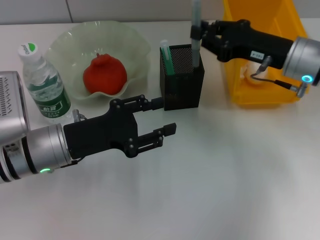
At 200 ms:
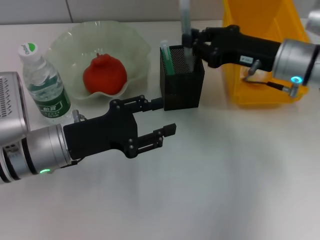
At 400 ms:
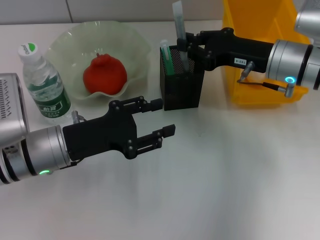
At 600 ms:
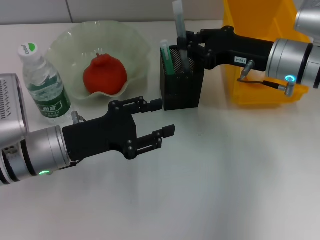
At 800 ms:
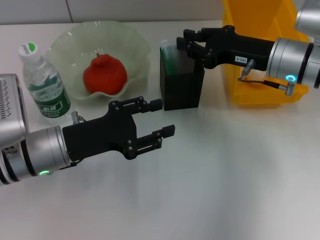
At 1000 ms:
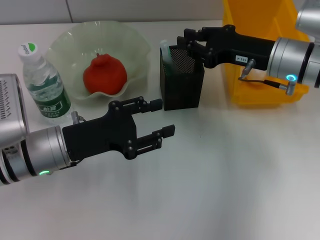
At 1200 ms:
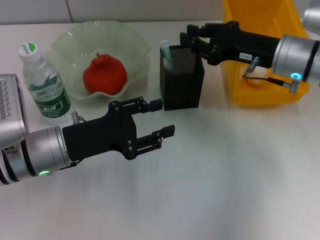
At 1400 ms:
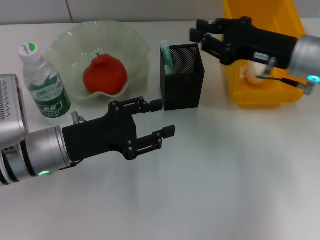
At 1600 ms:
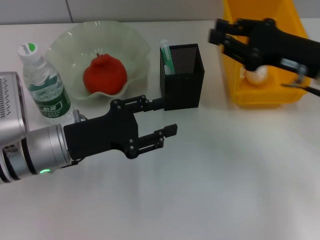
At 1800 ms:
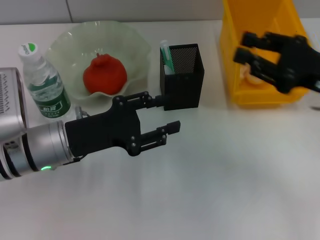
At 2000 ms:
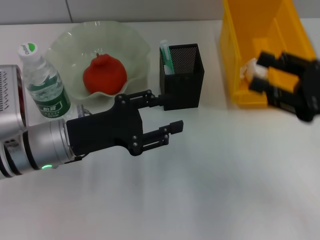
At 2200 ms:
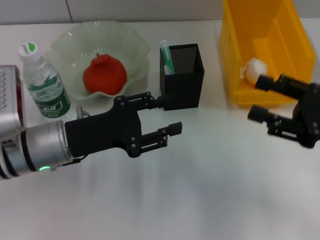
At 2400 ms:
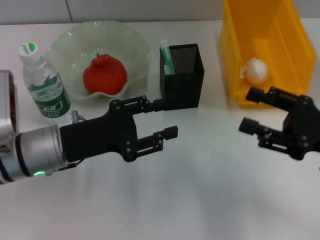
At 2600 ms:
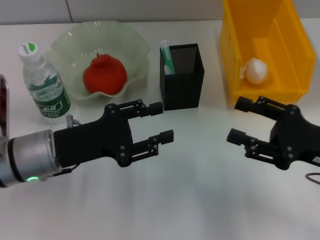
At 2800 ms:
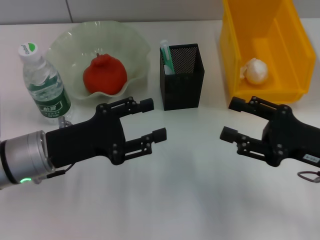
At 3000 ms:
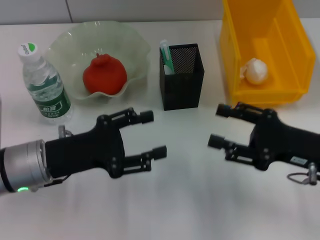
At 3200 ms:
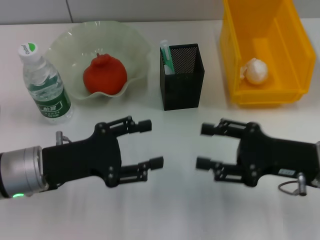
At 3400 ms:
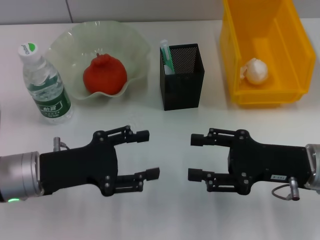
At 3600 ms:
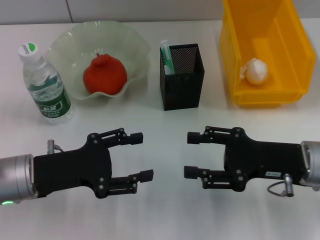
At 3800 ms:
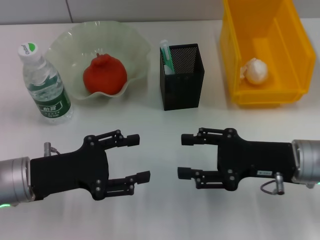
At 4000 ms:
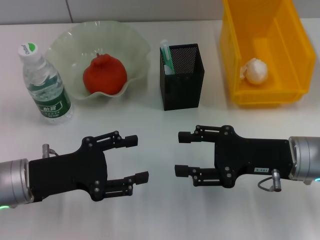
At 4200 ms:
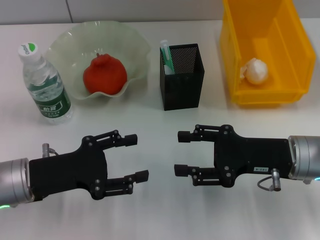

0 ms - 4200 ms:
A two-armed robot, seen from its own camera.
0 ms - 1400 ms: The grippers stay close to where they were, moving slightly.
1400 ms - 2800 ms: The right gripper is displaced backward and downward by roughly 15 cm, and opens.
2800 ms - 4200 ms: The right gripper travels to the left by roughly 5 cm.
